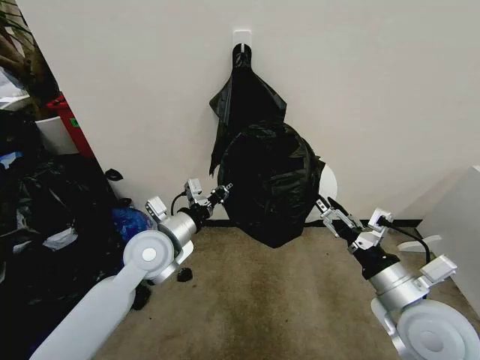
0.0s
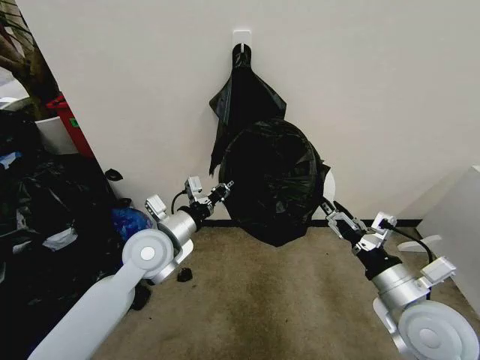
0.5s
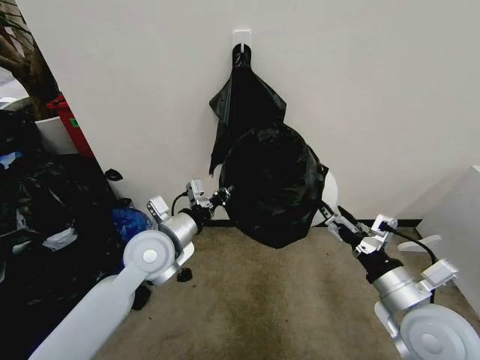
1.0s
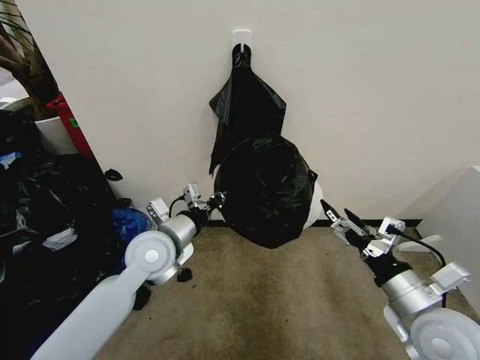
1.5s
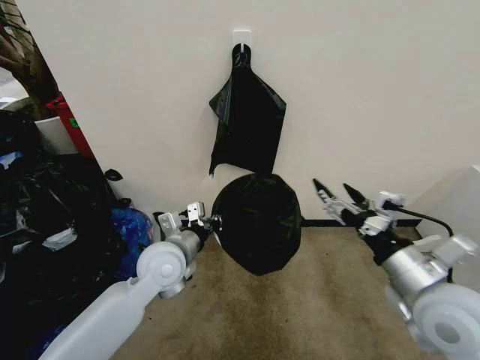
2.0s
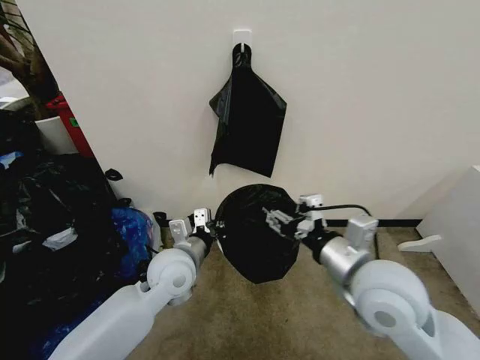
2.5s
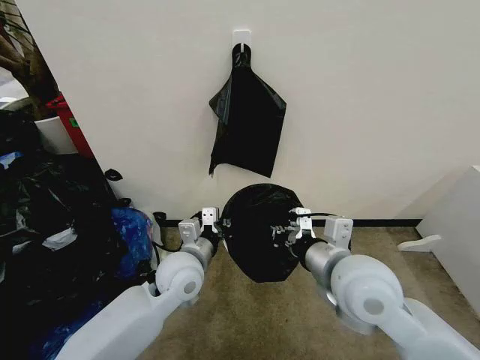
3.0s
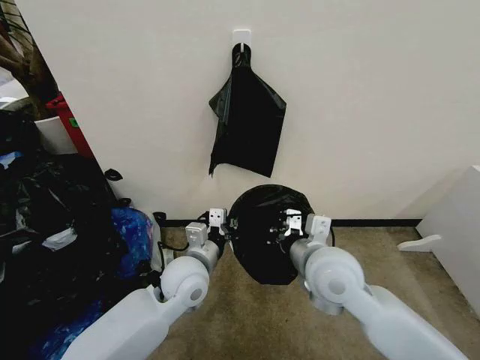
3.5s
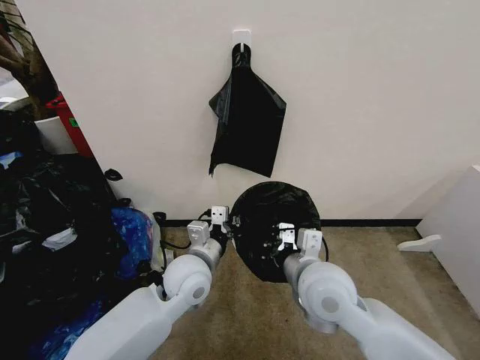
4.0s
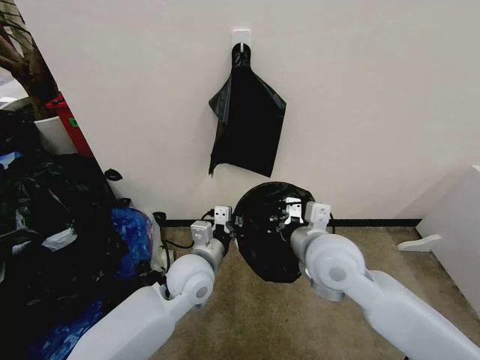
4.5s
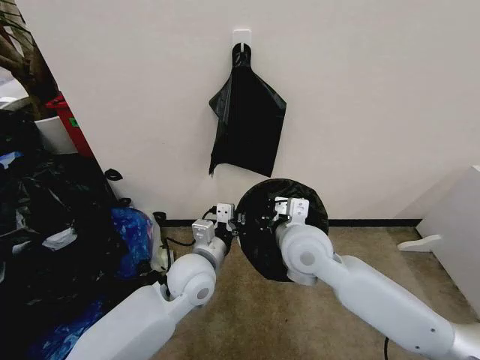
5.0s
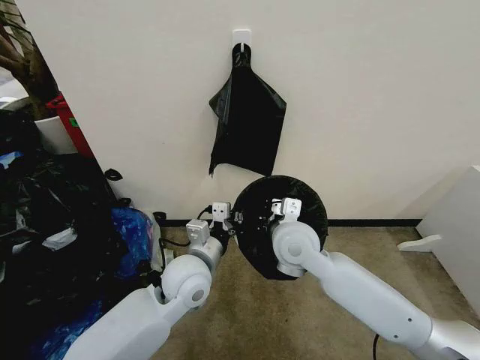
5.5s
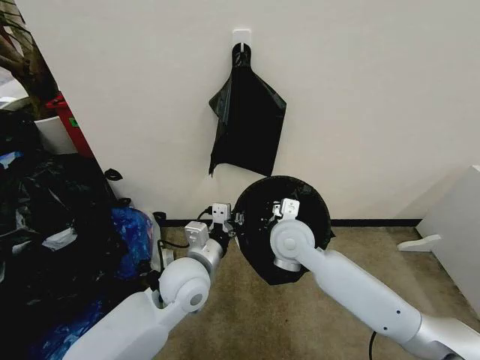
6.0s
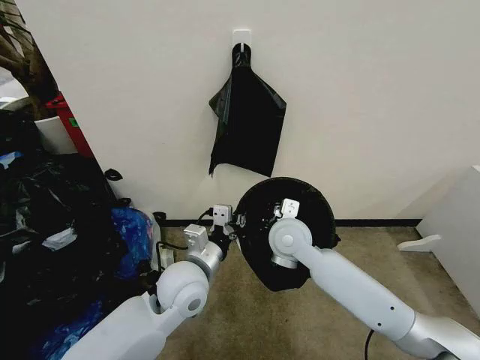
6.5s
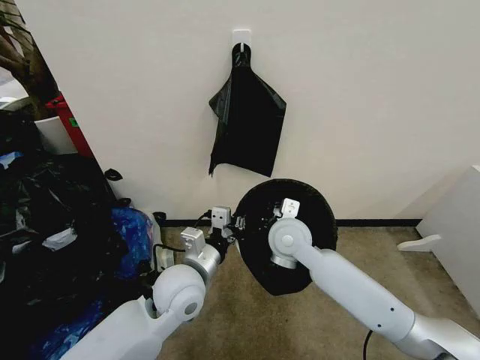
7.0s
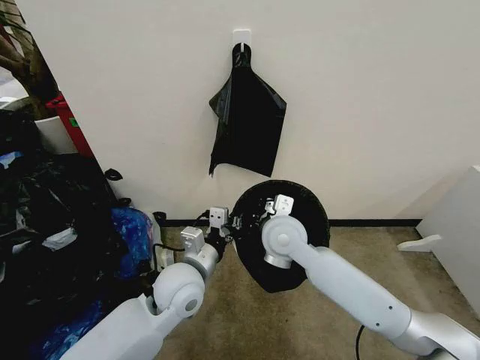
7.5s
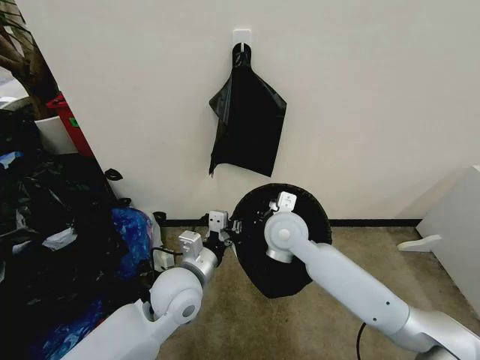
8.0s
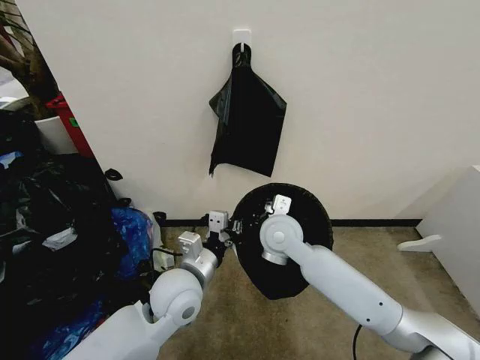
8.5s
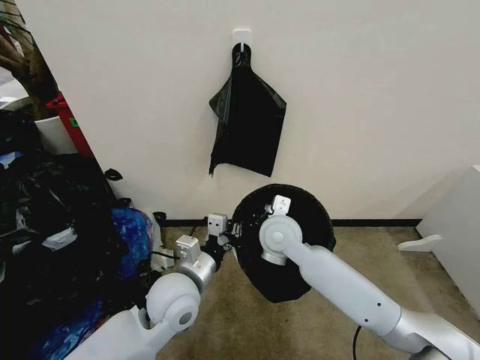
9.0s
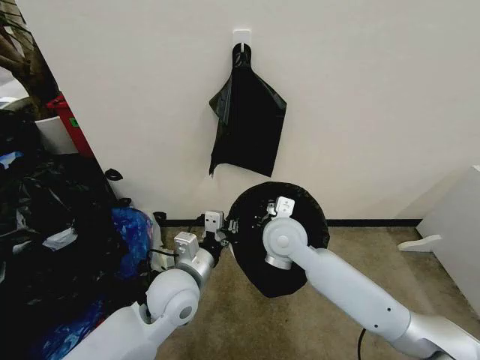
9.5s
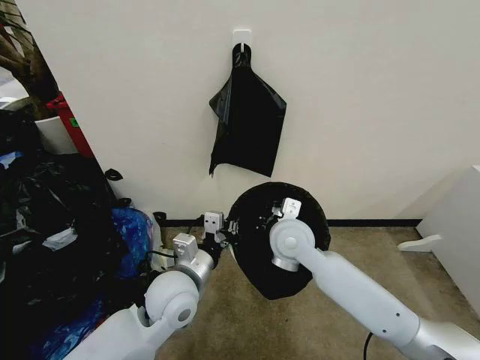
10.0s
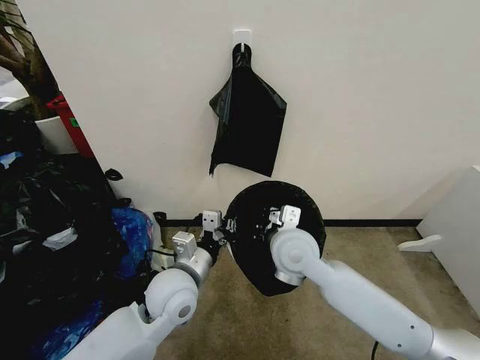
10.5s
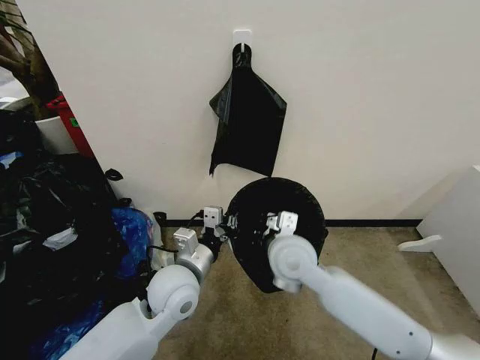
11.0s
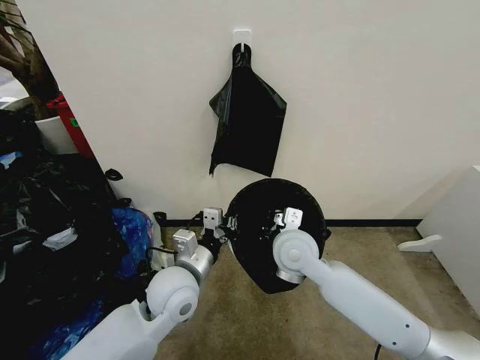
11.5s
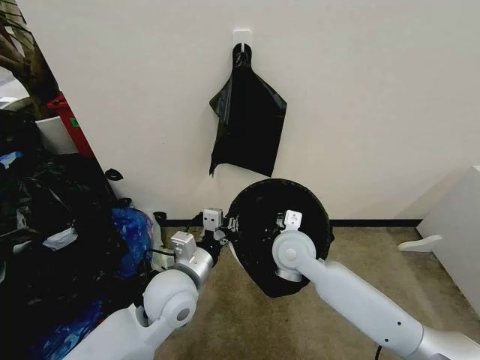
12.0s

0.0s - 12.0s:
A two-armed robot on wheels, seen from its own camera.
Task of the whole recording: Place the garbage bag over the trash bin.
2.0s - 4.0s: The right gripper is displaced to the left by some 15 cm, and closes up. Meanwhile the left gripper shifts about 5 cm to the right.
4.0s - 6.0s: The right gripper shifts about 10 cm forward.
6.0s - 12.0s: There are only small adjustments of the grippers.

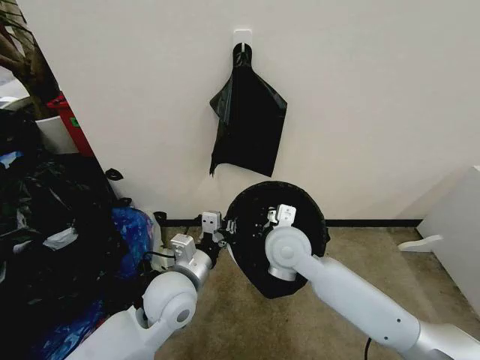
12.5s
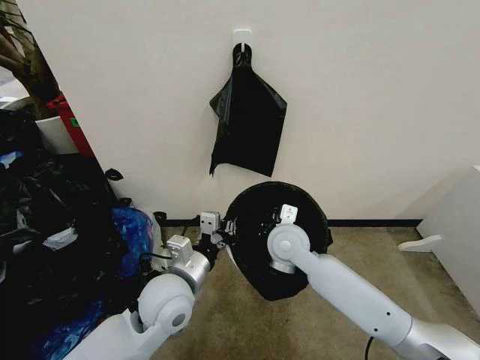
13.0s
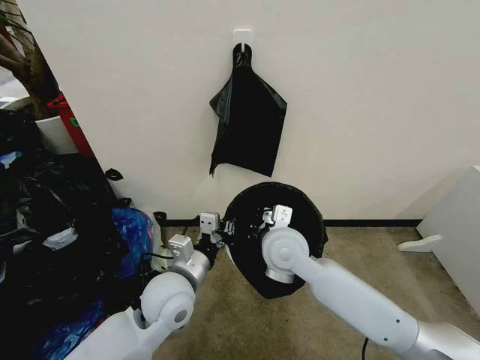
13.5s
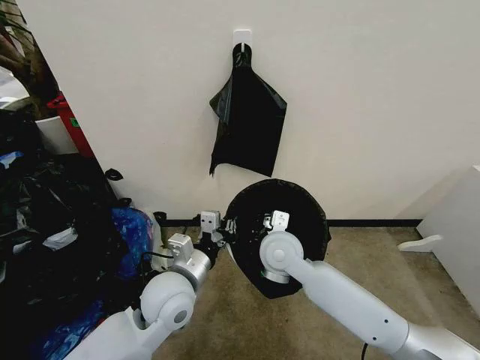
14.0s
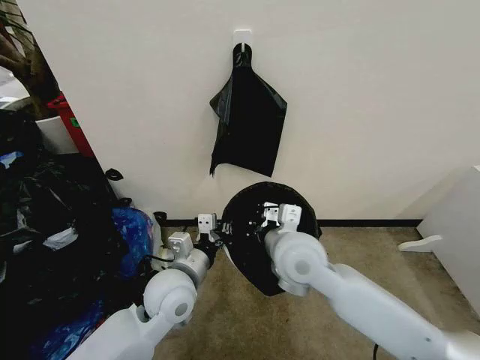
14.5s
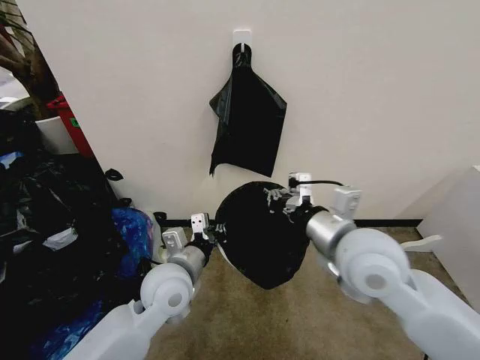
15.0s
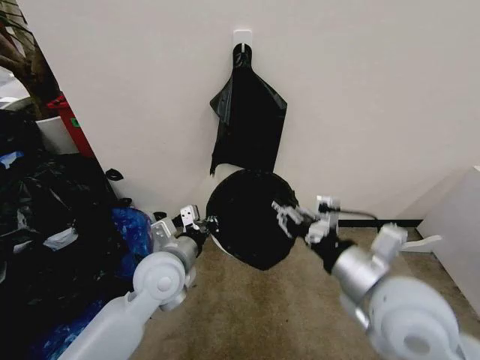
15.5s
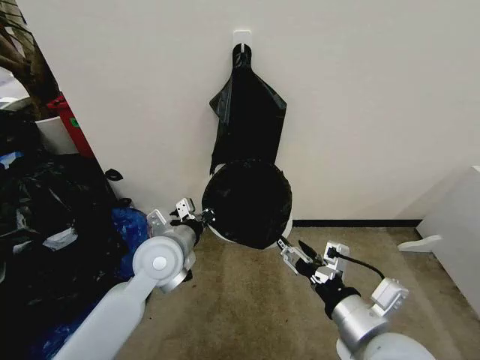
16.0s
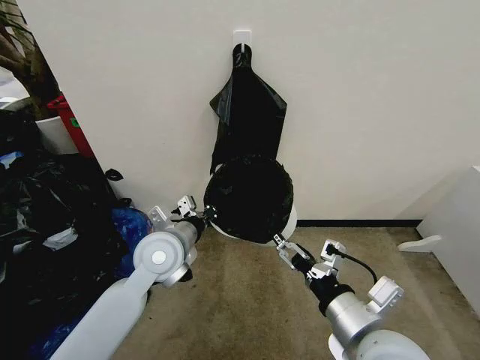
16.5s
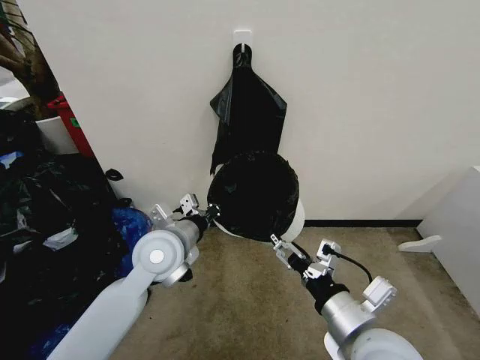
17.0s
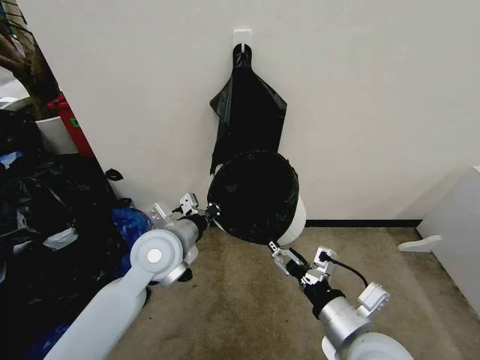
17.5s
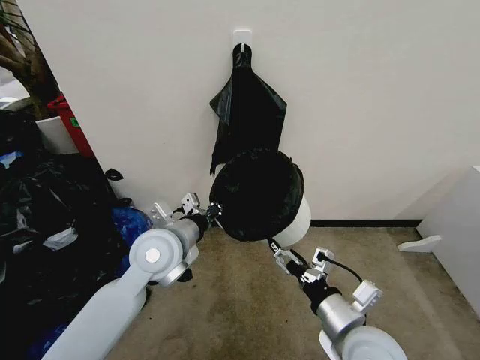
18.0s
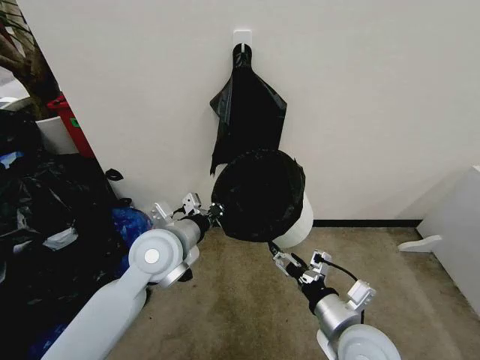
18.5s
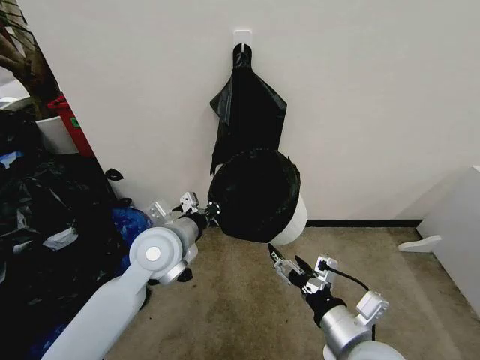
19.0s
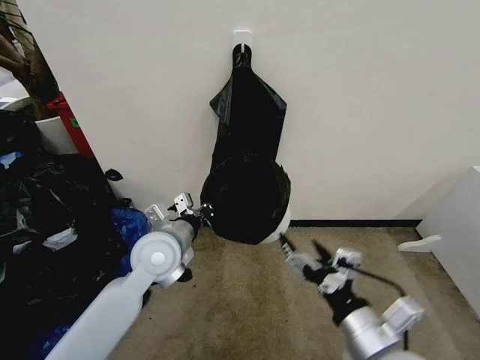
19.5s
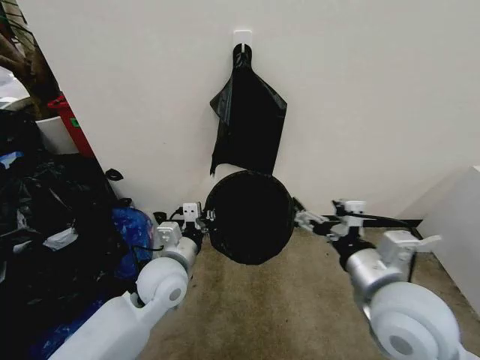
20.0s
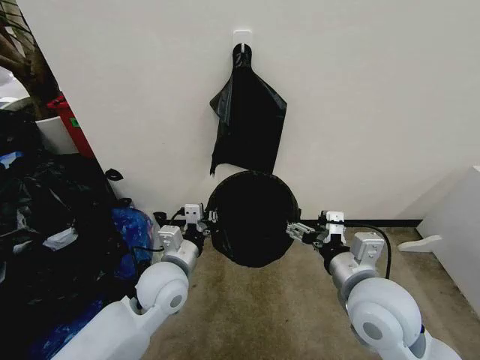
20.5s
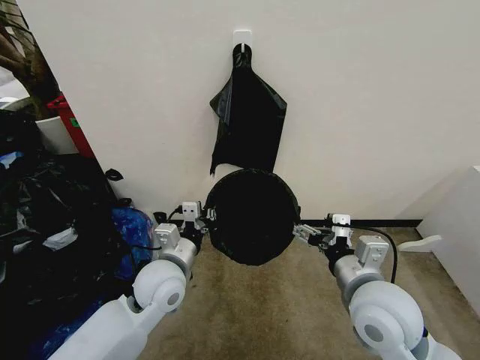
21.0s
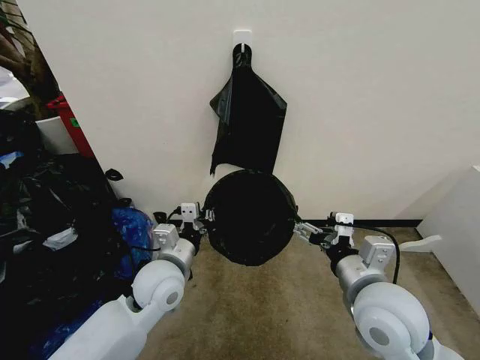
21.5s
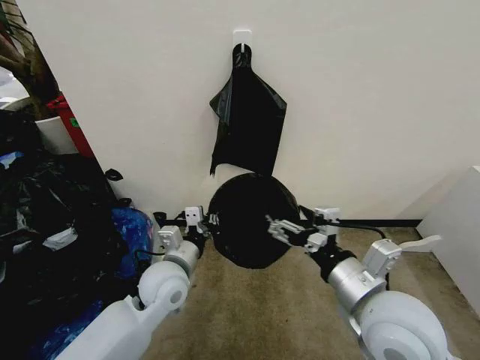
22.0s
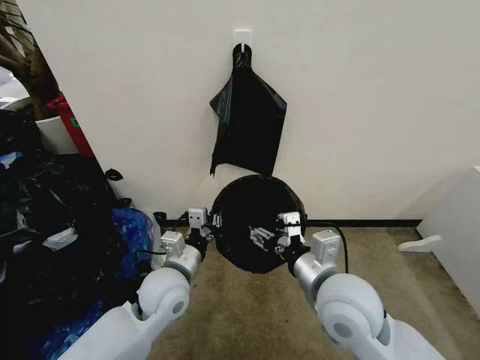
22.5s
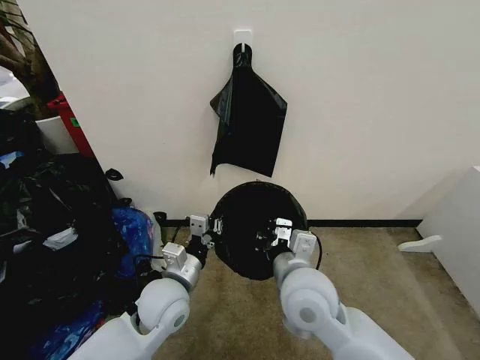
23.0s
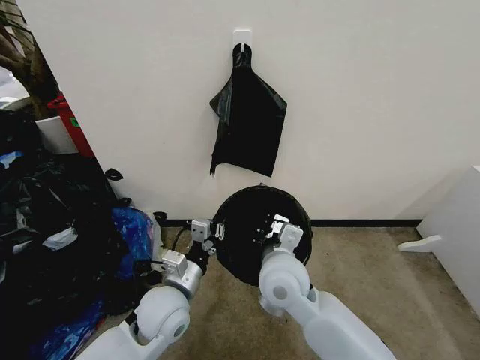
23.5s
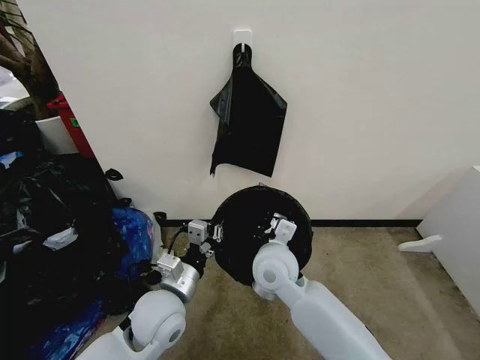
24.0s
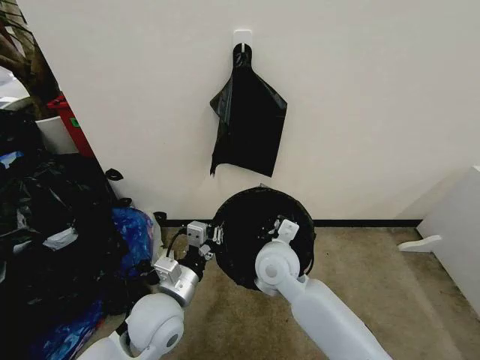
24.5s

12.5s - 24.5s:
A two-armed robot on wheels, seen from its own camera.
Task of the whole recording: Place the garbage bag over the trash bin.
12.5s - 14.5s: The right gripper moves approximately 5 cm.
14.5s - 16.5s: The right gripper shifts roughly 20 cm backward and to the right, and opens up, while the left gripper goes some 5 cm forward.
16.5s - 18.5s: The right gripper shifts about 10 cm downward.
18.5s - 20.5s: The right gripper shifts some 10 cm upward, while the left gripper heads downward, covering approximately 5 cm.
20.5s - 22.5s: The right gripper changes place by some 5 cm.
22.5s - 24.5s: The right gripper moves forward, to the left and downward, some 15 cm, and closes.

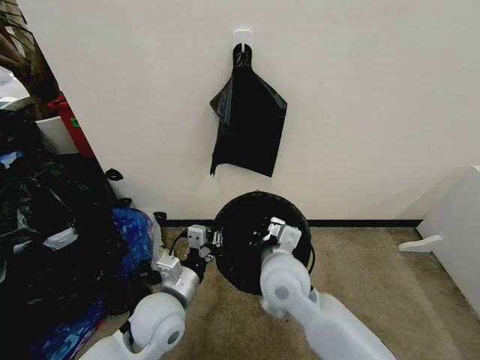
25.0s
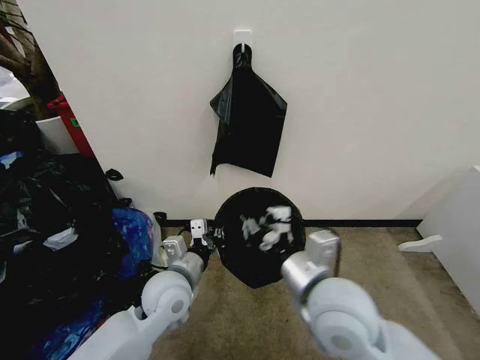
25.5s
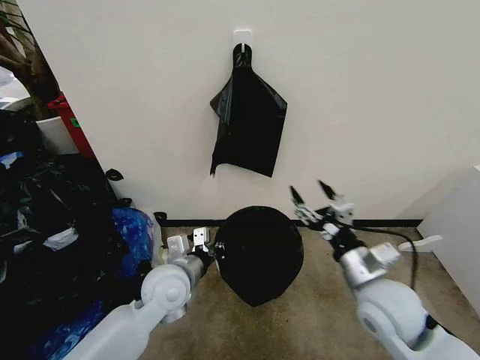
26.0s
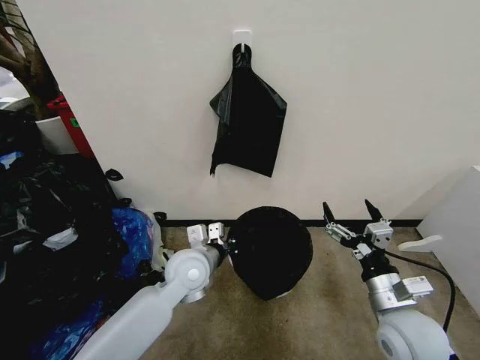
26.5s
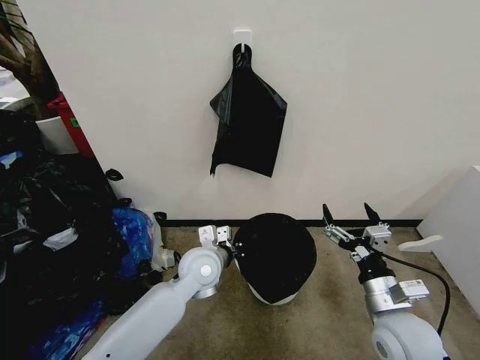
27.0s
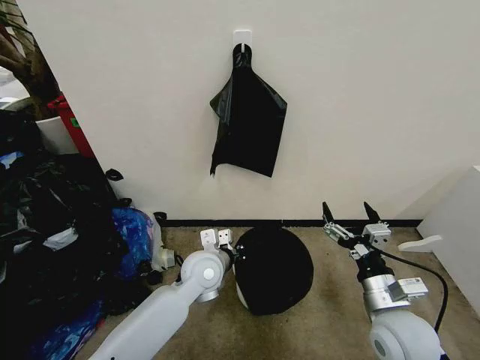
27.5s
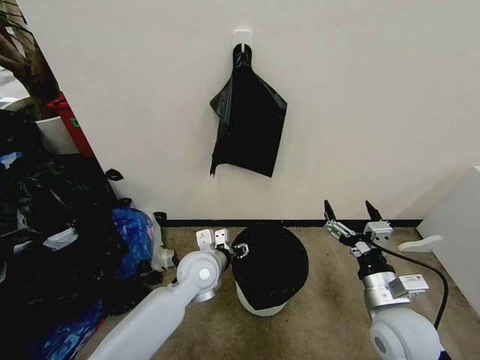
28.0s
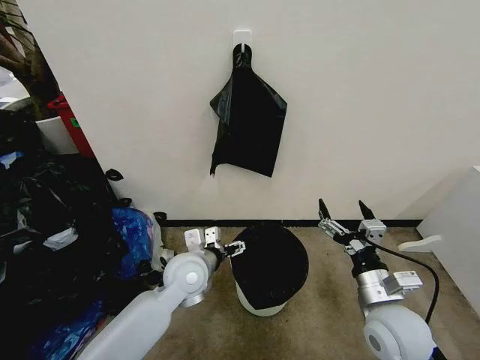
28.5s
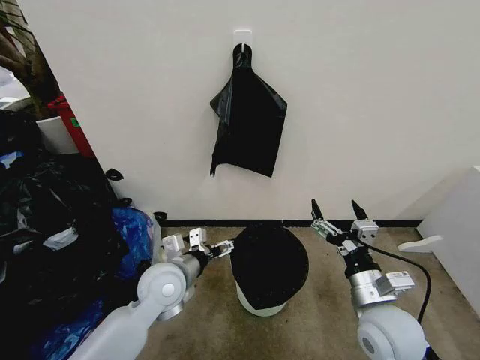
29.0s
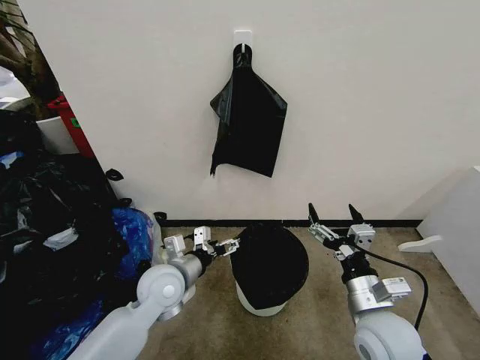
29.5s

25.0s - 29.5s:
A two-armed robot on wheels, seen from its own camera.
Task of the whole recording: Place the garbage bag over the trash bin.
25.0s - 27.0s: The right gripper heads to the right, covering about 20 cm, and opens its fingers. Meanwhile the left gripper goes some 10 cm forward and to the right.
27.0s - 29.5s: The left gripper goes some 10 cm to the left, and opens.
